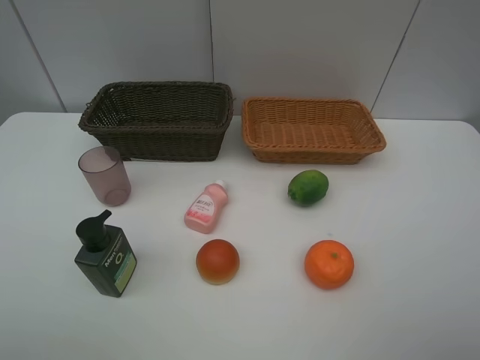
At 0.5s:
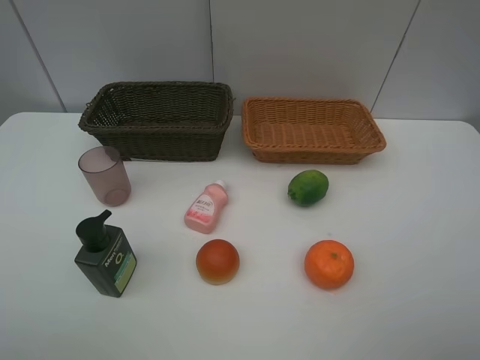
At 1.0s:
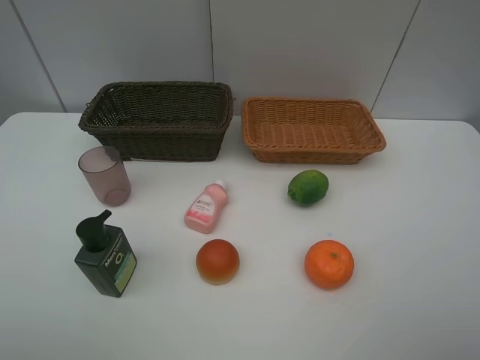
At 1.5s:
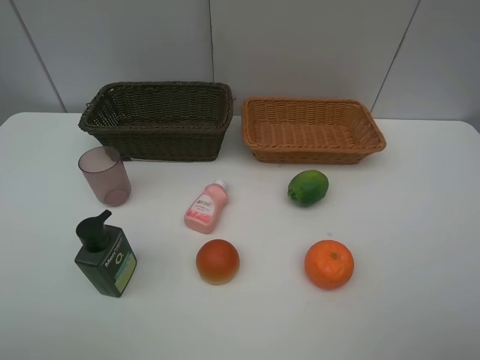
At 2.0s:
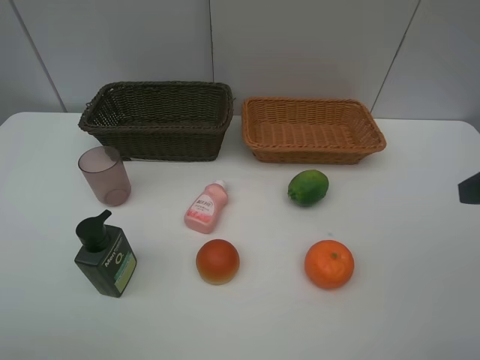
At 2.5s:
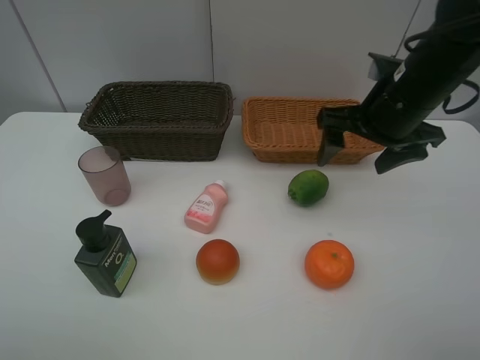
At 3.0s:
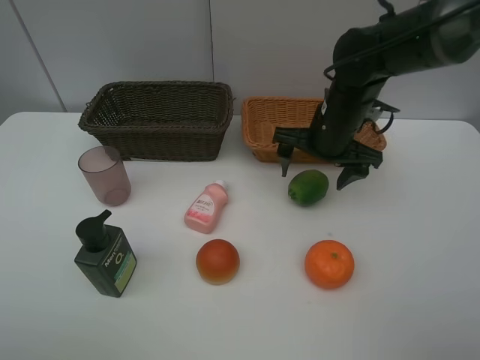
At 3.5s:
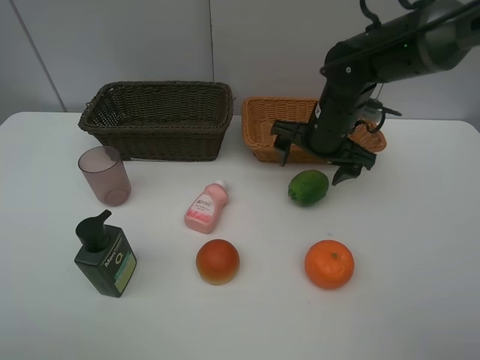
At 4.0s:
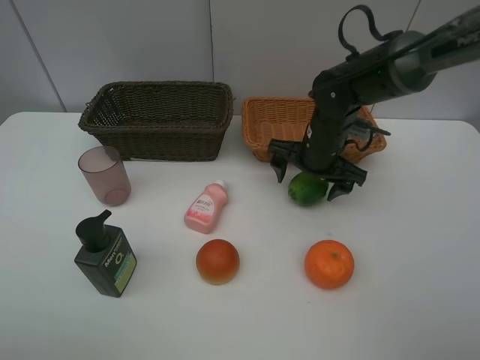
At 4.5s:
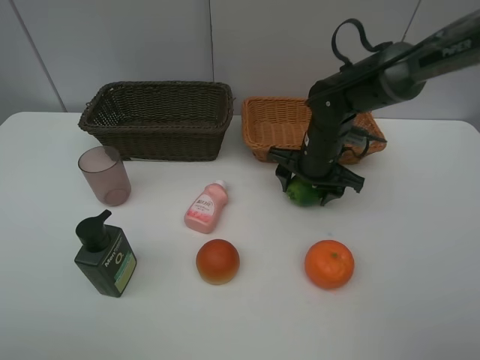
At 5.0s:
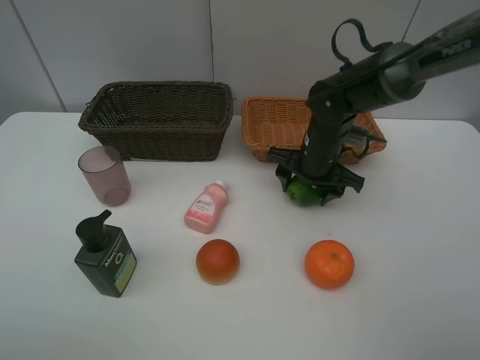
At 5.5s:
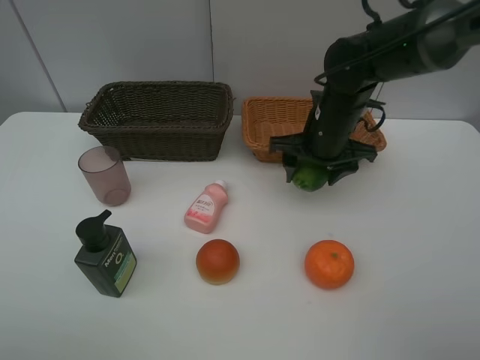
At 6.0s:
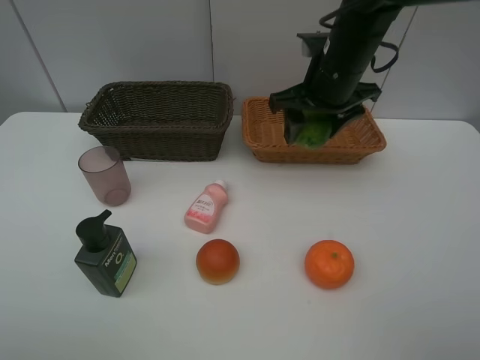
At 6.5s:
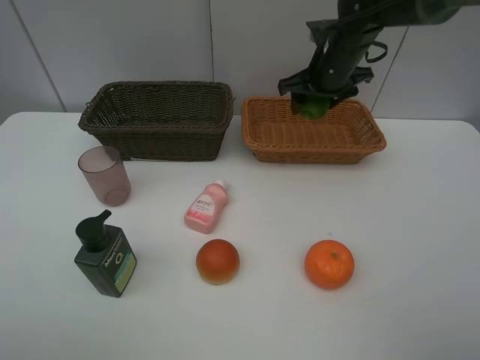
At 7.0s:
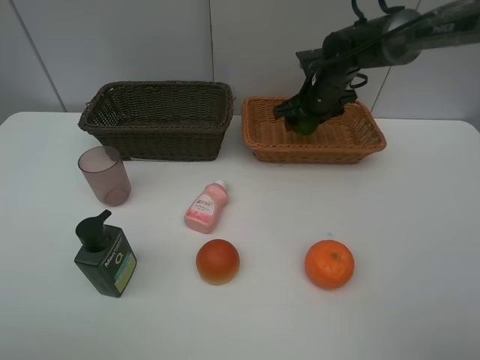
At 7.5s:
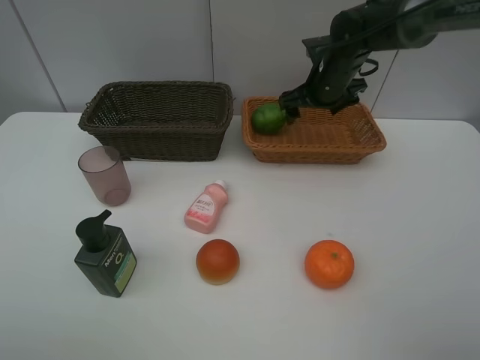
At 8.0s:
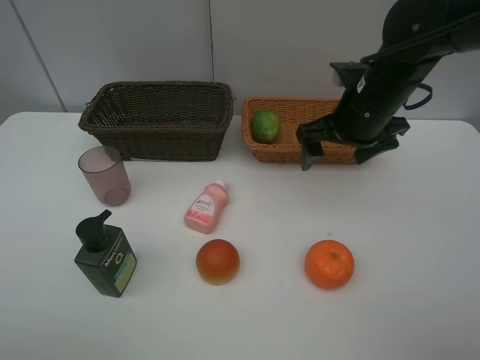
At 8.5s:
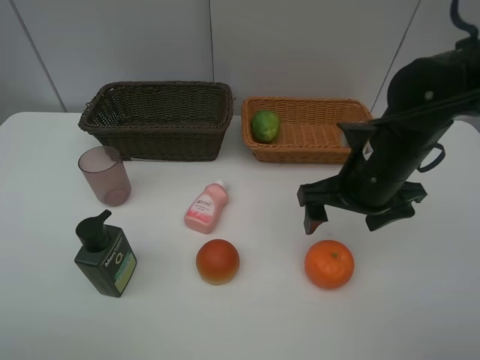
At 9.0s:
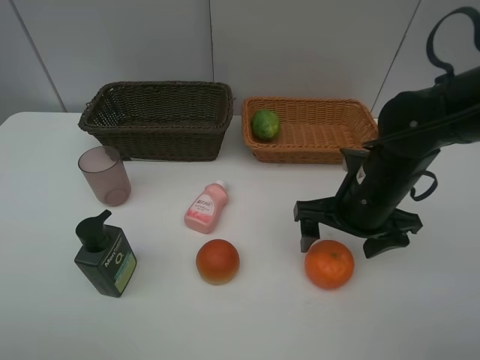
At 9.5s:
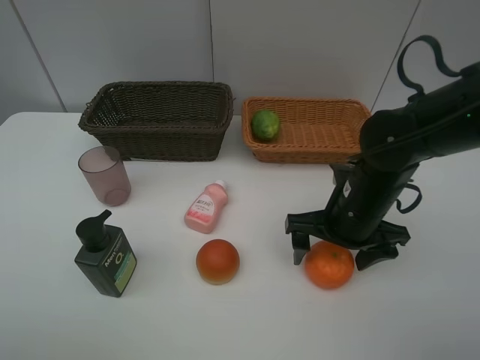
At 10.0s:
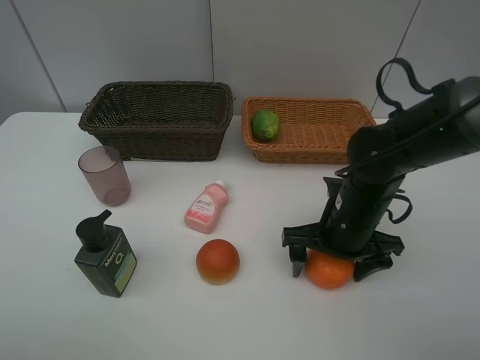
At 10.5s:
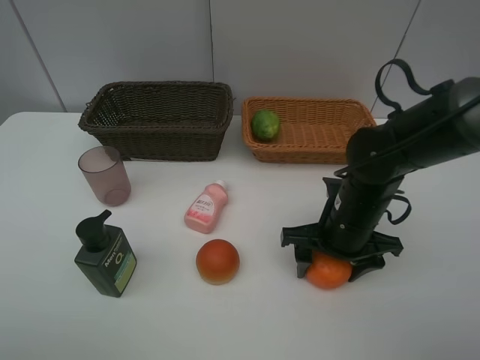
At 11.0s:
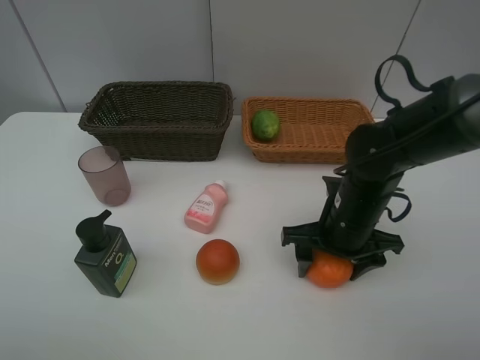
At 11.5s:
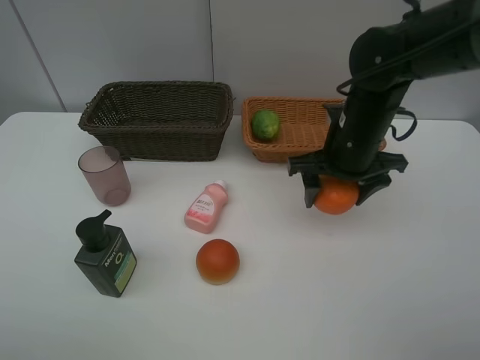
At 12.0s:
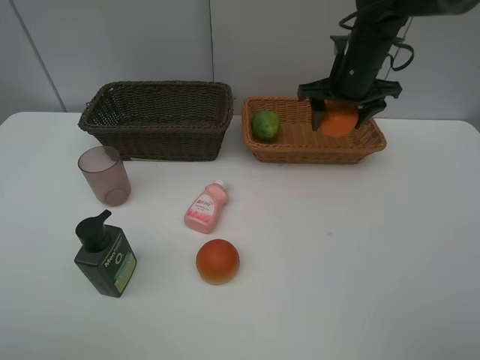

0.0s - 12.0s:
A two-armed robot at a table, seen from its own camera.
Task of the whole recording: place multiple objects separately in different baskets.
Step, 0.0s - 5.0s: Pick up the lime with right gripper.
Step, 5.5s - 7.5s: Place the lime in the light basket with right gripper.
Step, 8.0s - 11.0s: Pick up the orange with right gripper.
2.0s - 4.0s: The right gripper goes about 30 cm forward, downward and to the left.
4.0s - 6.0s: The right gripper moves upward, about 10 cm, and closes up.
6.0s - 8.0s: The right gripper moves approximately 10 cm forward and comes back, and opens.
8.0s - 10.0s: The right gripper heads downward and backward, covering approximately 15 cm.
10.0s - 12.0s: The right gripper heads forward and upward, covering about 25 cm, and closes its fingers.

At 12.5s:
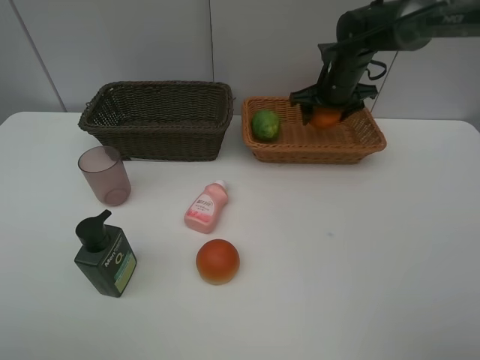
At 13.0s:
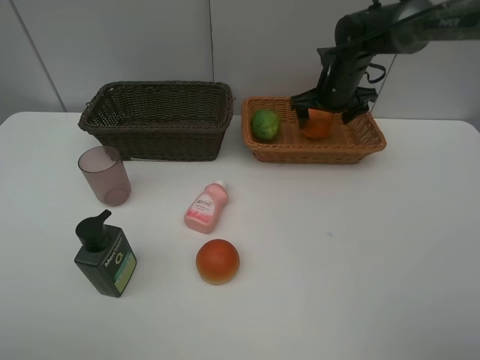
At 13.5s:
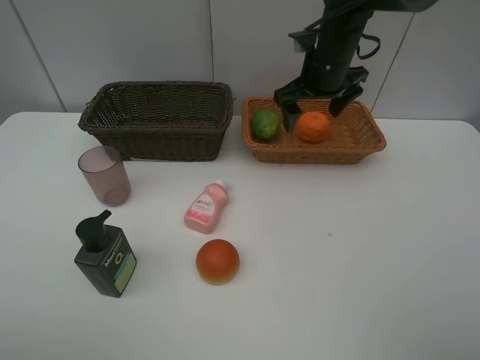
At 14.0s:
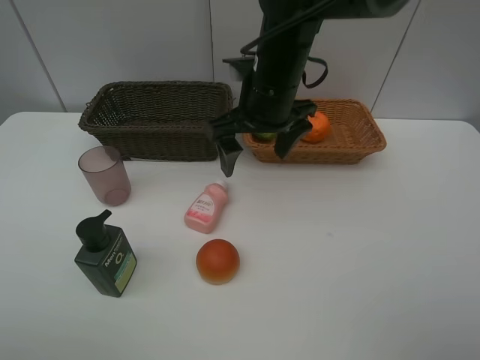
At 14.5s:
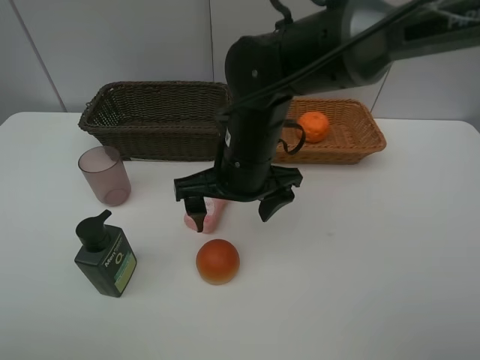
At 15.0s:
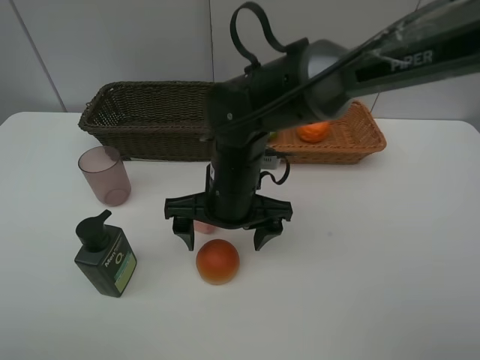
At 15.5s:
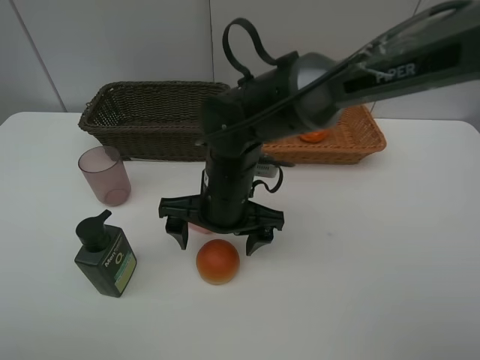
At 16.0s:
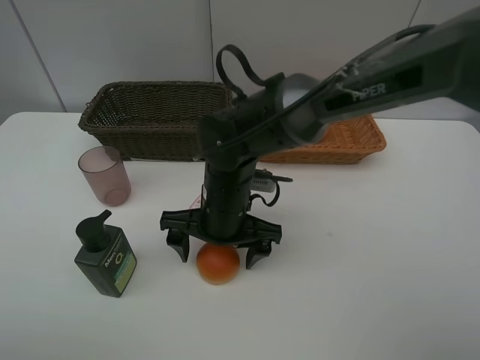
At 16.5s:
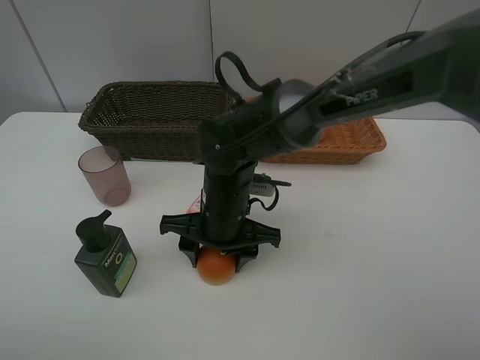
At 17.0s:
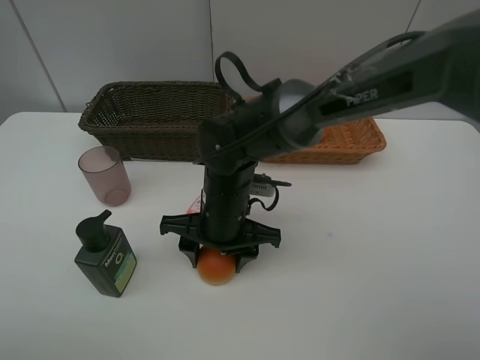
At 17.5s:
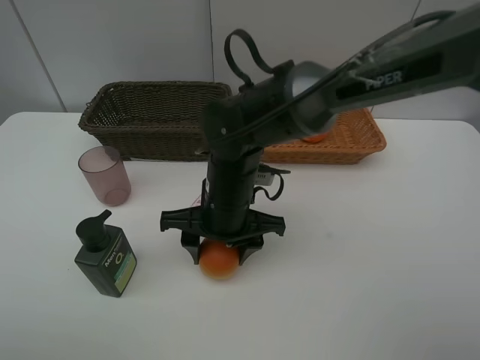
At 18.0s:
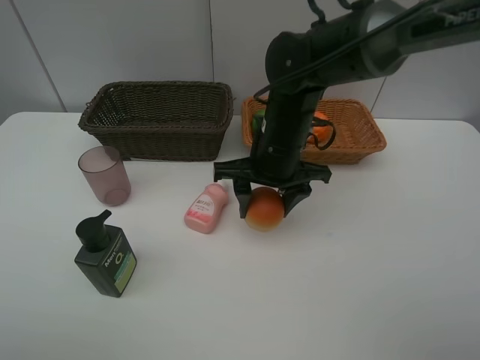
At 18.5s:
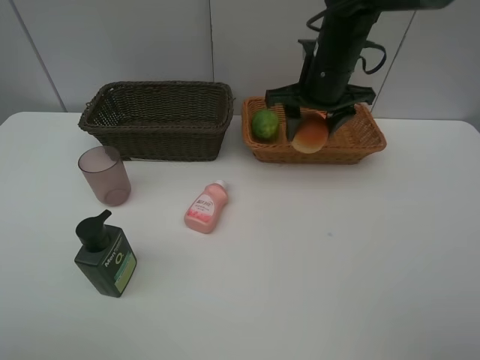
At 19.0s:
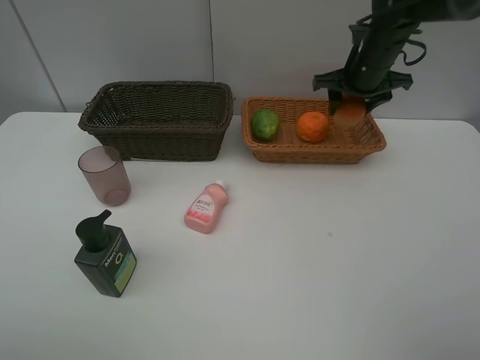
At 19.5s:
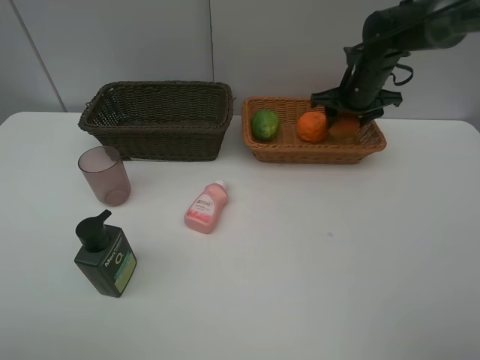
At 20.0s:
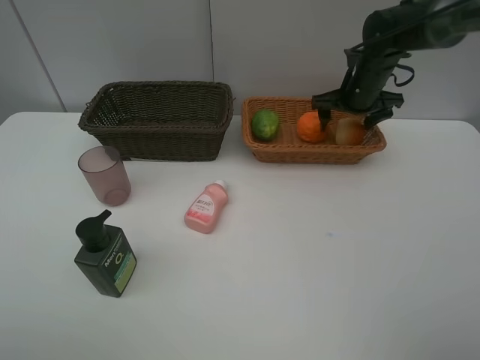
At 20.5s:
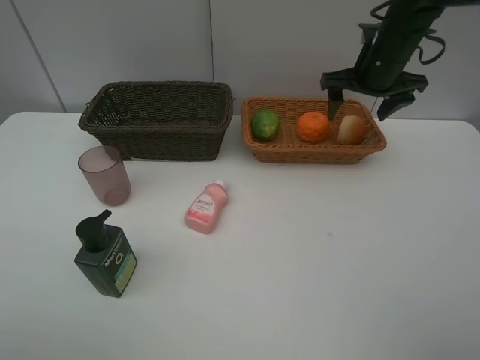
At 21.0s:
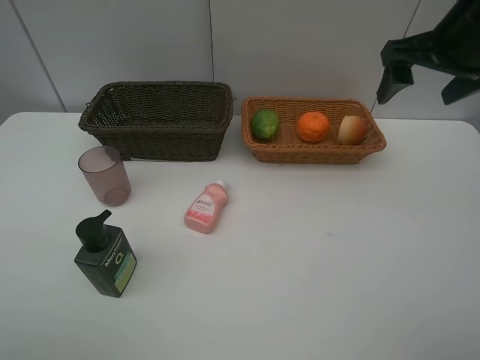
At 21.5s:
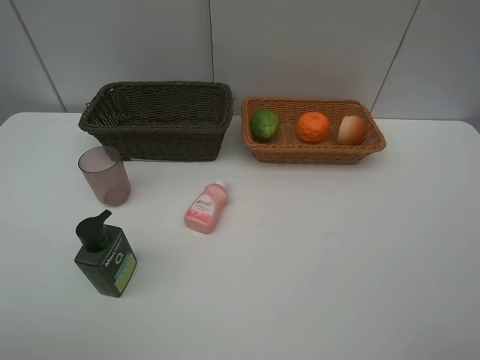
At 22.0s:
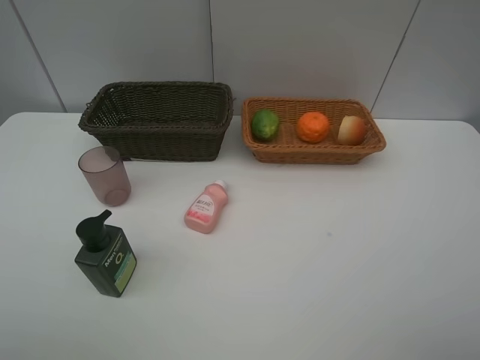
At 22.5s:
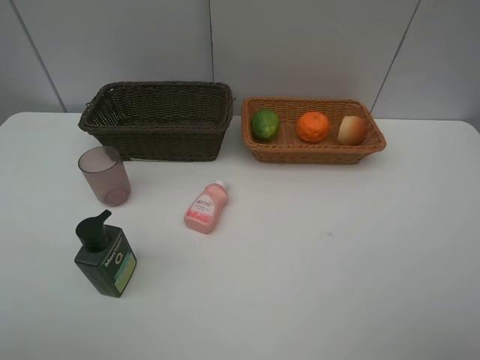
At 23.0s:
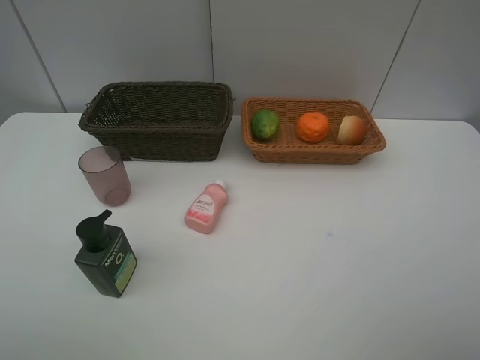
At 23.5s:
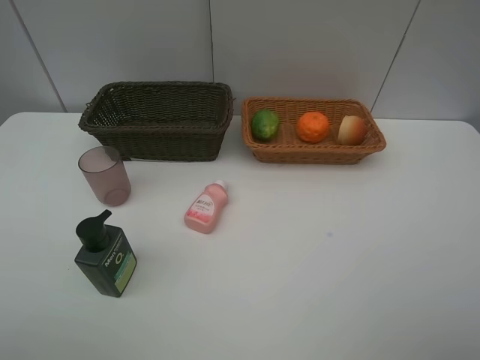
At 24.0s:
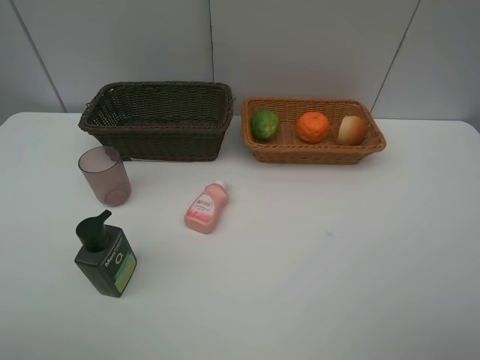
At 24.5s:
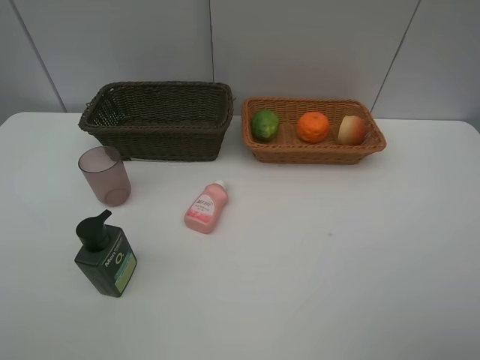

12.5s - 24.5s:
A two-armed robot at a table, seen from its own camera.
Task of the whole recording: place multiple objects separately in different baskets.
Step, 13.5s - 17.5s: Pick up the bread with right gripper.
Step, 18.0s - 20.0s: Place the bread in the light basket with right gripper.
12.5s - 14.5s: The right gripper goes some 30 cm backward and to the left, and opens.
14.5s - 16.5s: The right gripper moves downward, roughly 5 cm, and closes its fingers.
16.5s - 18.5s: The right gripper shifts about 25 cm to the right, forward and upward.
18.5s - 20.5s: The right gripper travels to the right by approximately 10 cm, and opens up.
20.5s - 22.5s: The right gripper shifts about 40 cm backward.

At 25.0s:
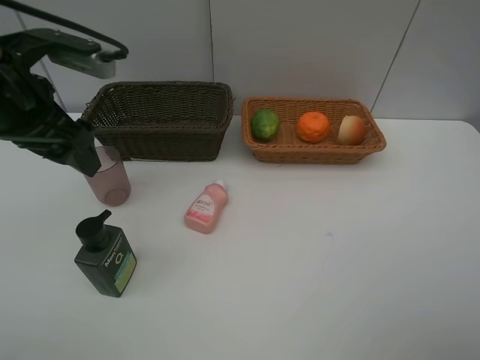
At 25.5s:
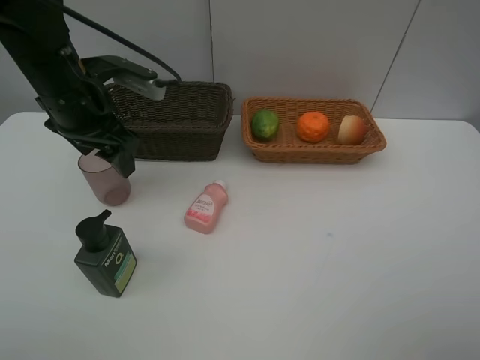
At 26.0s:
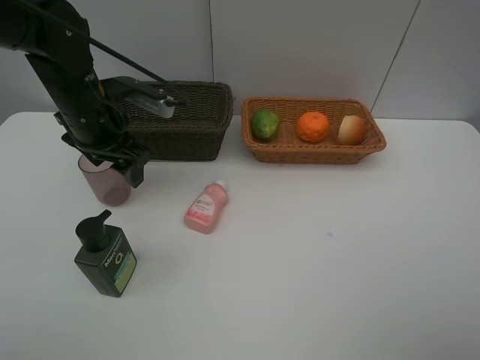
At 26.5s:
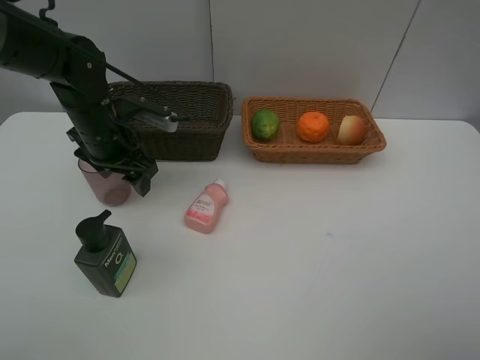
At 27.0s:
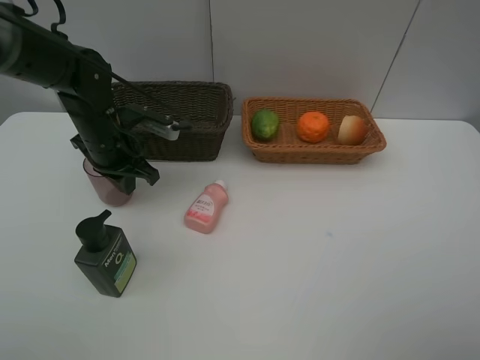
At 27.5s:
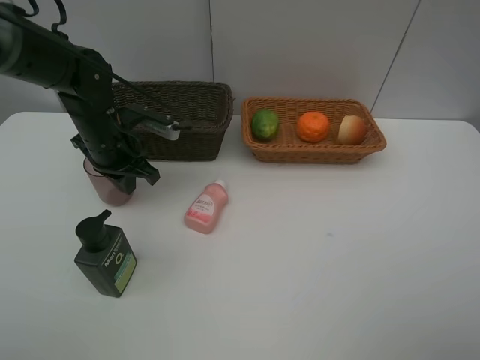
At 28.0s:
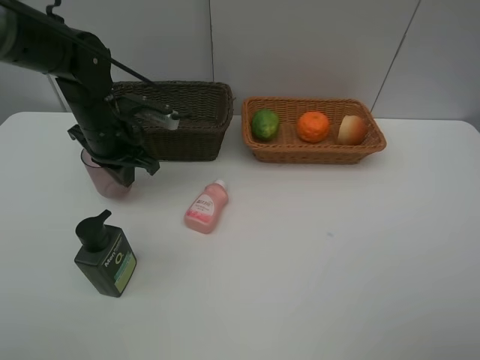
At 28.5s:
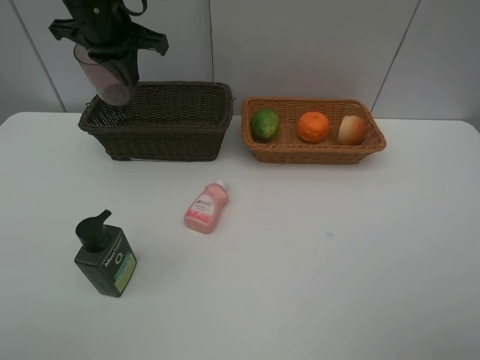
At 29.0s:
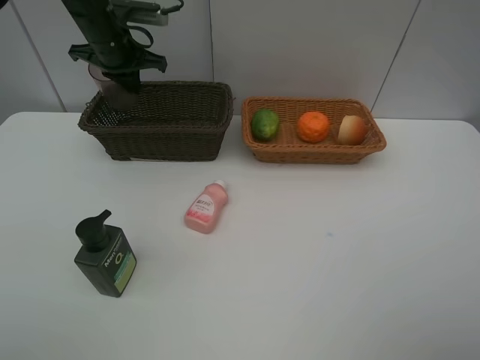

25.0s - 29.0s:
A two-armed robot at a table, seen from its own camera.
Task of the whole recording: place multiple objects separately in different baskets.
Step, 25.0s - 28.0s: Pick up the brown cup with left gripper.
25.0s - 27.0s: The left gripper goes some 15 cm downward and forward, and closes its fingers.
27.0s - 29.0s: The left gripper goes about 15 cm forward and upward.
